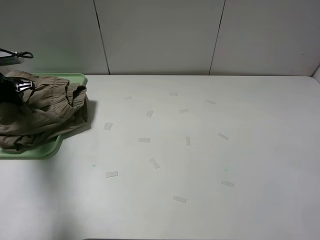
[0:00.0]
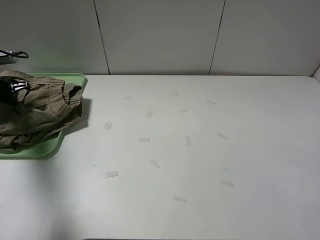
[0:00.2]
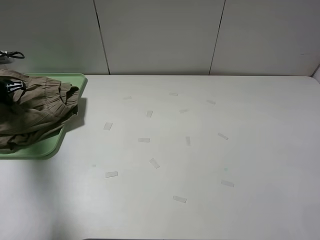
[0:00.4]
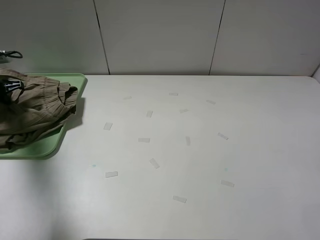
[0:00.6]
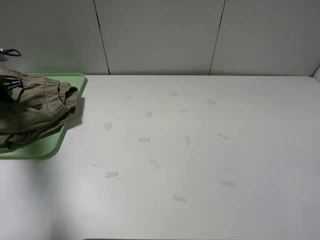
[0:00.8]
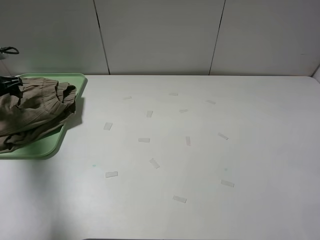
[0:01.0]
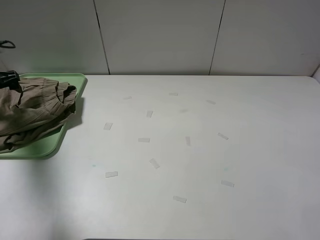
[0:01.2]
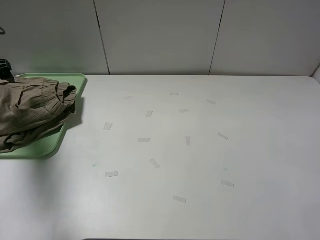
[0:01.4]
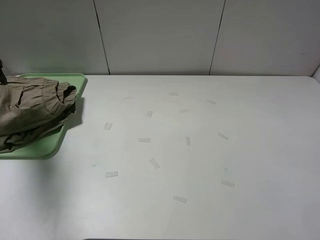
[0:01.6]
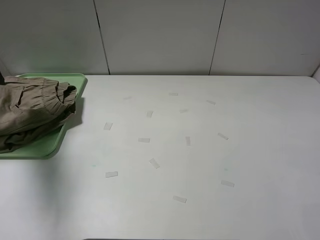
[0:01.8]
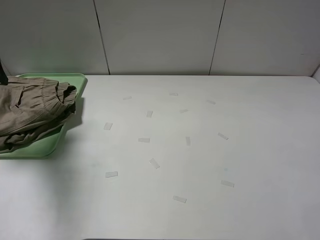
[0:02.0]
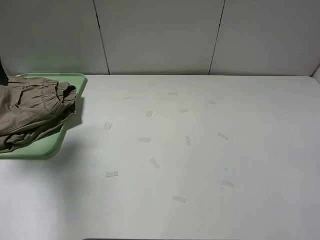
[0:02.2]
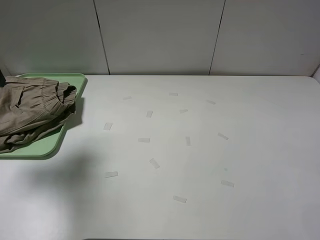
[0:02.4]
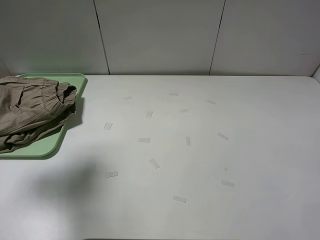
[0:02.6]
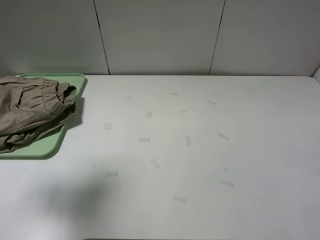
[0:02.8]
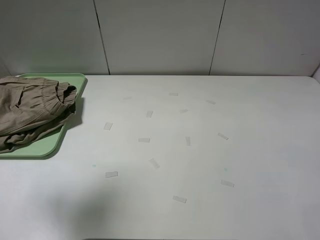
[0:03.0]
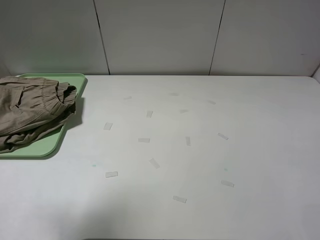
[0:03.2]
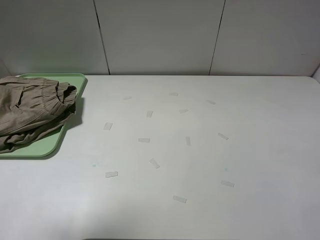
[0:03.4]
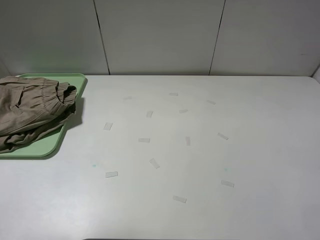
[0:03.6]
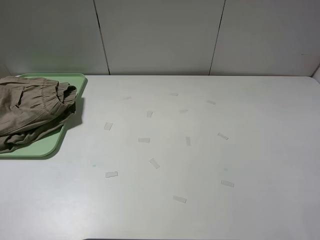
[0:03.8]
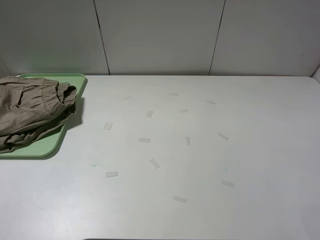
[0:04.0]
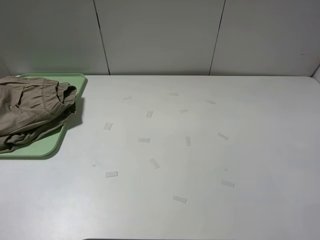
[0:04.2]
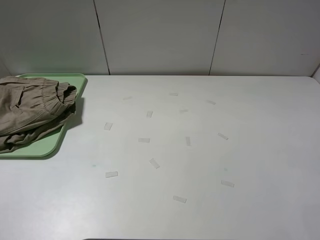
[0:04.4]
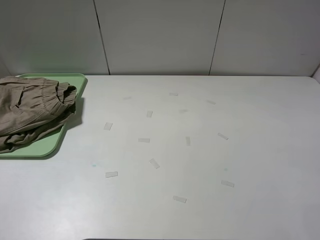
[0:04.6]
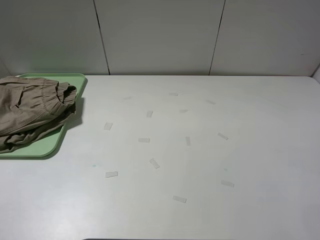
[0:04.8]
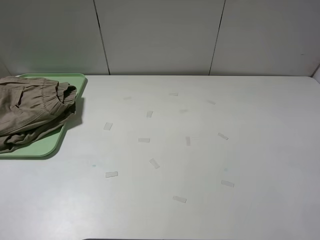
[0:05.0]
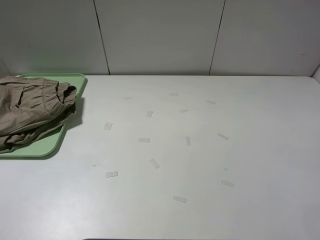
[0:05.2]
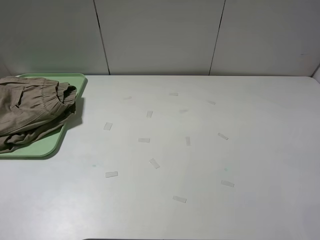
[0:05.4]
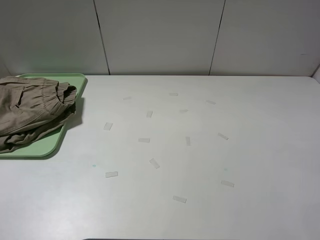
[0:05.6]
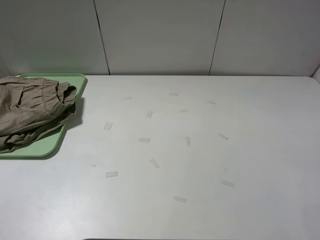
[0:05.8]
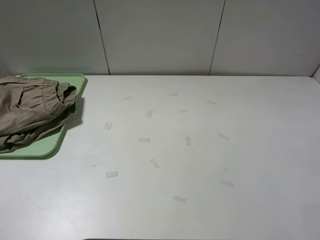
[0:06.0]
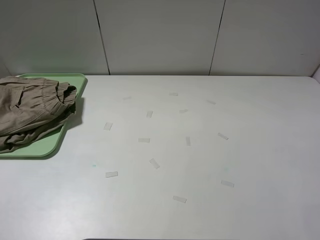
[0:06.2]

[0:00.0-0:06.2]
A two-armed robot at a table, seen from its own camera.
Task of the whole recording: fold the khaki jeans in half with two grippers, then fold them in half again, and use the left claw to place the folded fold khaki jeans on the tray.
0:00.0 to 0:01.6: The left gripper is displaced upward by about 10 cm, and opens its fingers.
0:01.6 to 0:03.2: The left gripper shifts about 30 cm backward, upward and to the right.
0:03.2 to 0:04.6: The left gripper travels backward and downward by some 20 cm.
